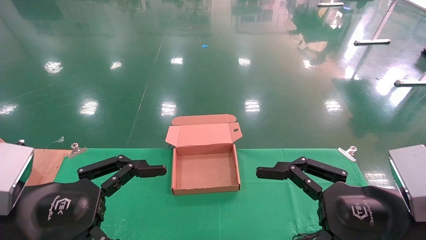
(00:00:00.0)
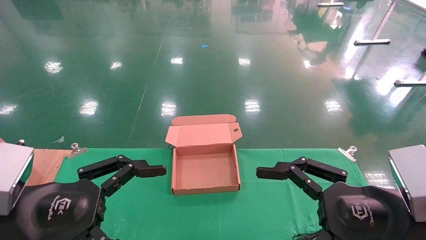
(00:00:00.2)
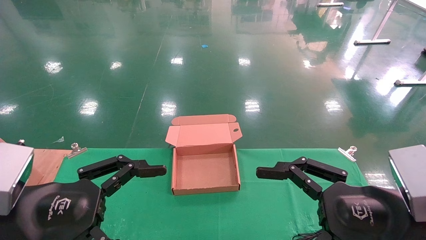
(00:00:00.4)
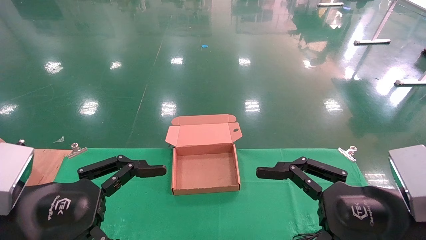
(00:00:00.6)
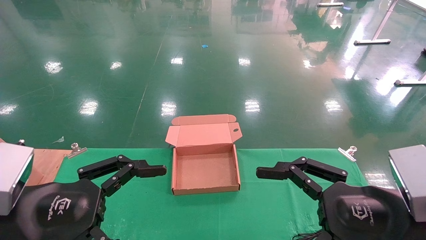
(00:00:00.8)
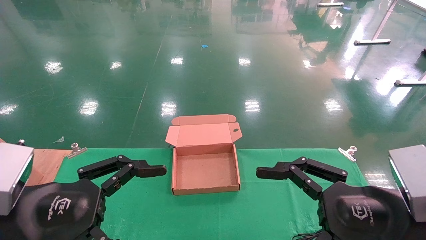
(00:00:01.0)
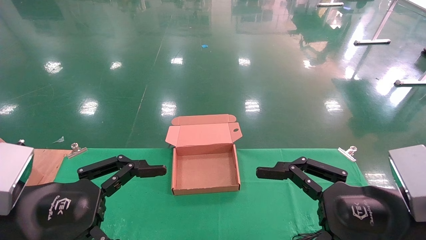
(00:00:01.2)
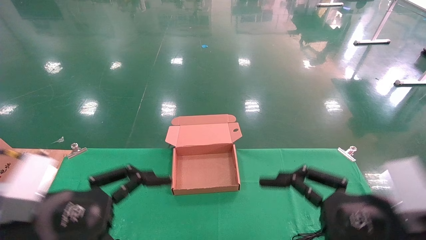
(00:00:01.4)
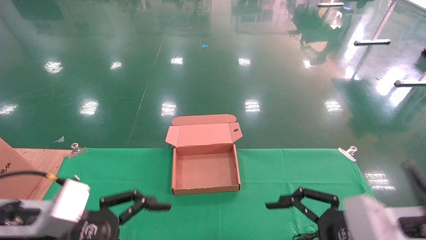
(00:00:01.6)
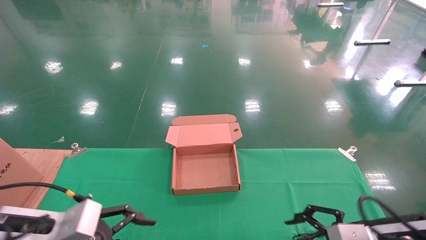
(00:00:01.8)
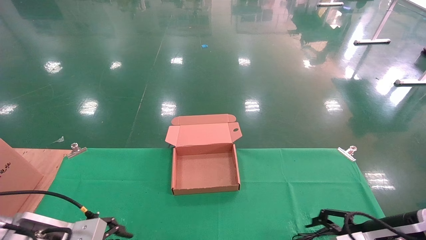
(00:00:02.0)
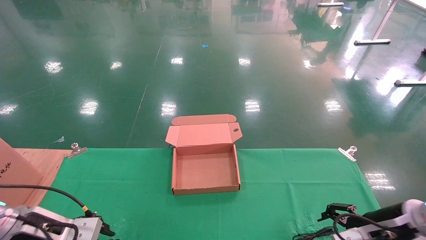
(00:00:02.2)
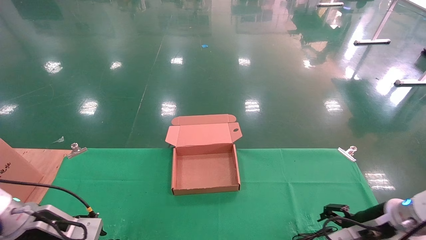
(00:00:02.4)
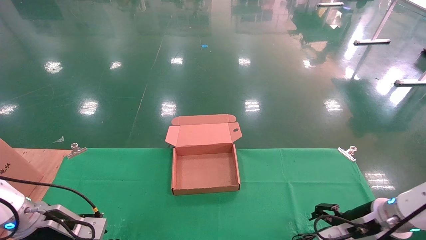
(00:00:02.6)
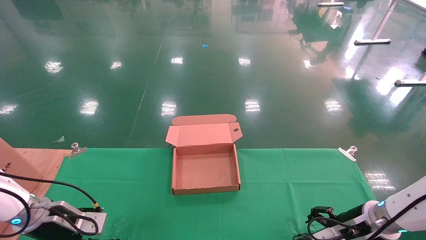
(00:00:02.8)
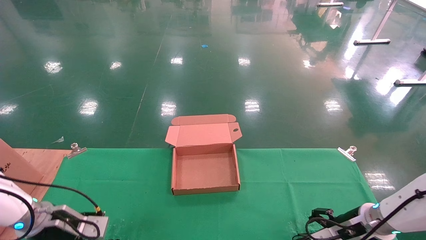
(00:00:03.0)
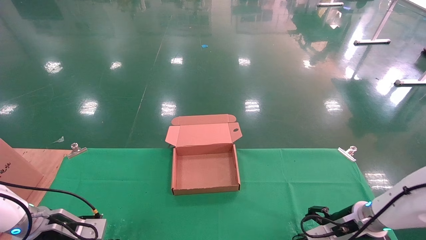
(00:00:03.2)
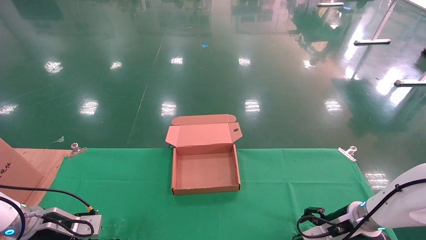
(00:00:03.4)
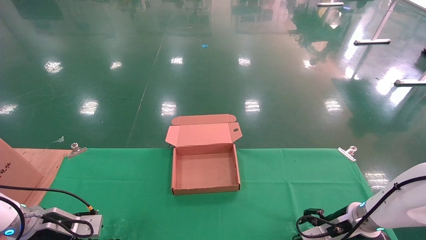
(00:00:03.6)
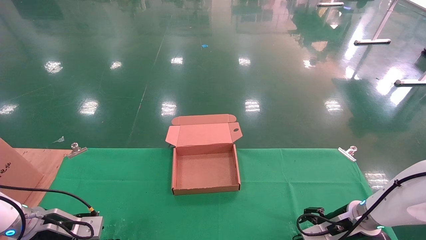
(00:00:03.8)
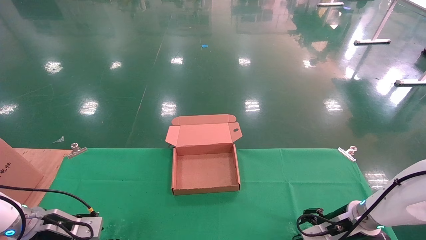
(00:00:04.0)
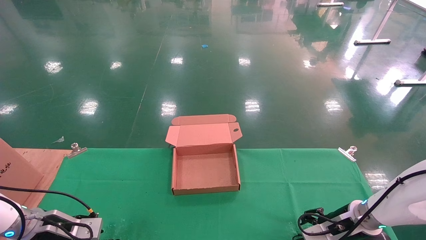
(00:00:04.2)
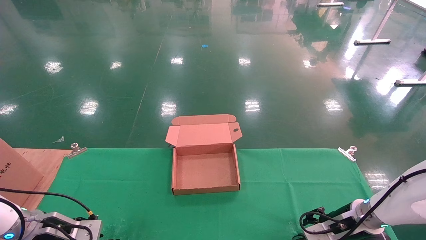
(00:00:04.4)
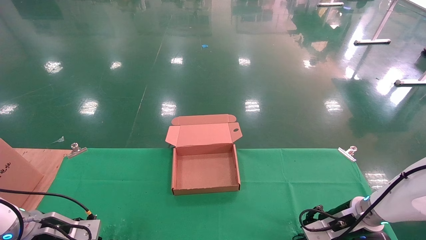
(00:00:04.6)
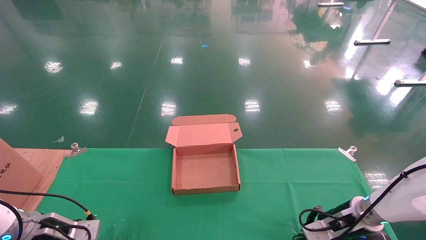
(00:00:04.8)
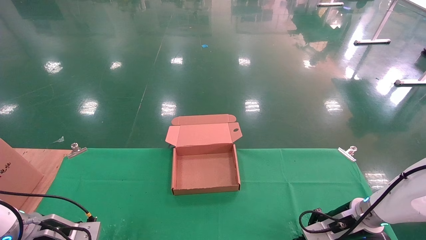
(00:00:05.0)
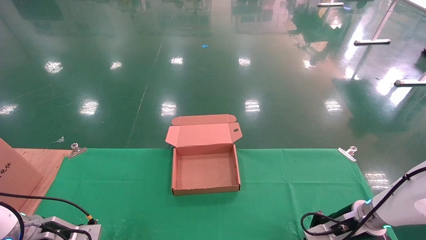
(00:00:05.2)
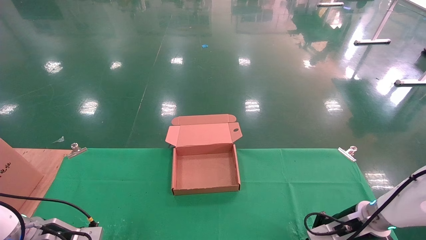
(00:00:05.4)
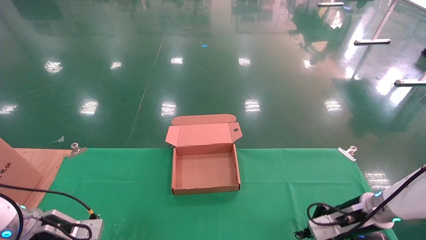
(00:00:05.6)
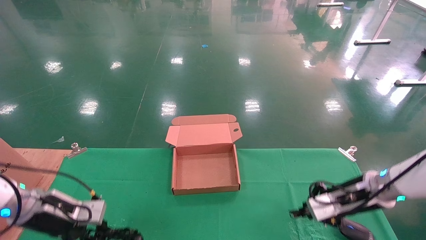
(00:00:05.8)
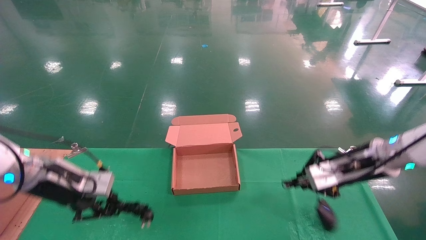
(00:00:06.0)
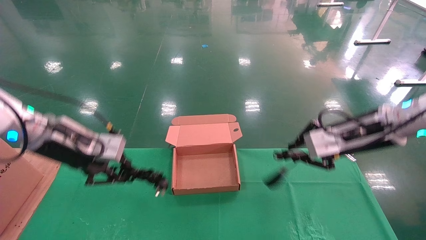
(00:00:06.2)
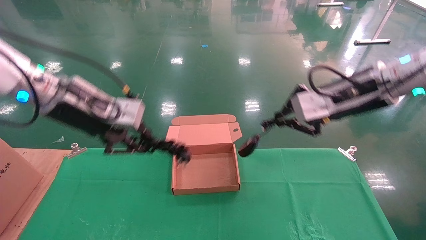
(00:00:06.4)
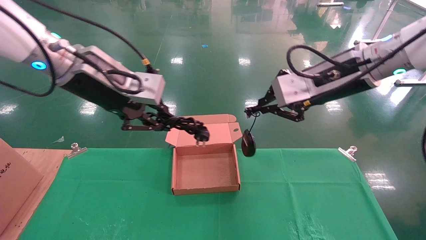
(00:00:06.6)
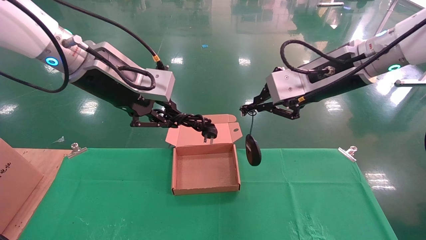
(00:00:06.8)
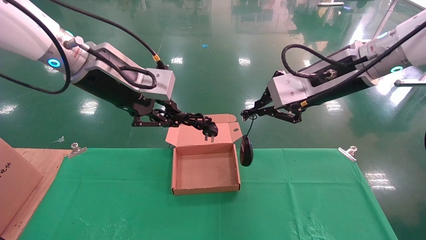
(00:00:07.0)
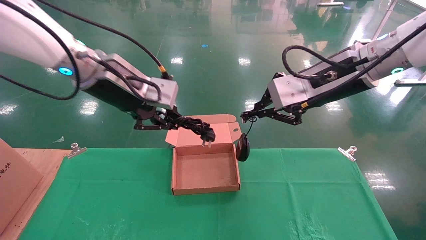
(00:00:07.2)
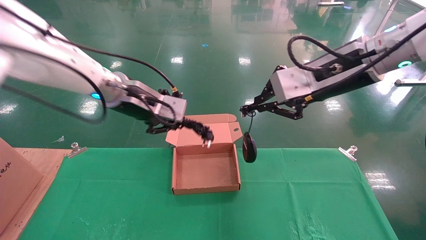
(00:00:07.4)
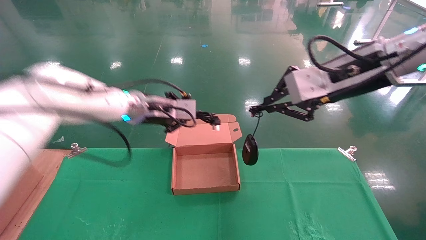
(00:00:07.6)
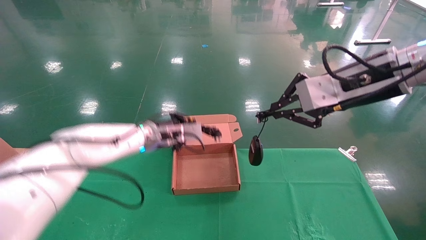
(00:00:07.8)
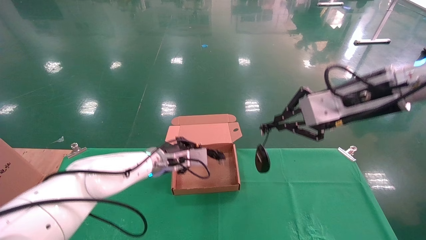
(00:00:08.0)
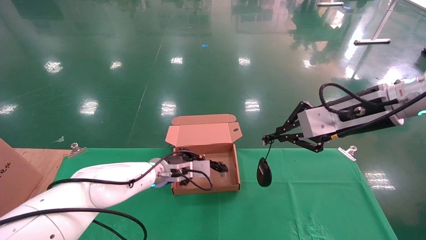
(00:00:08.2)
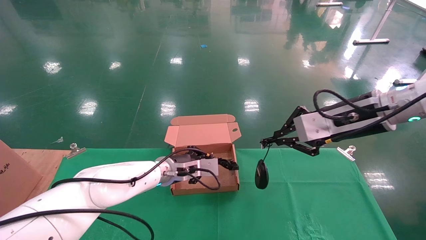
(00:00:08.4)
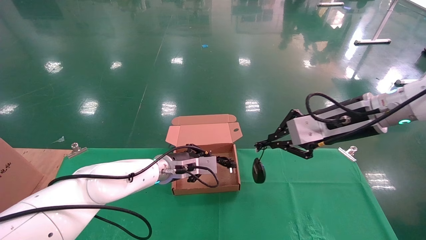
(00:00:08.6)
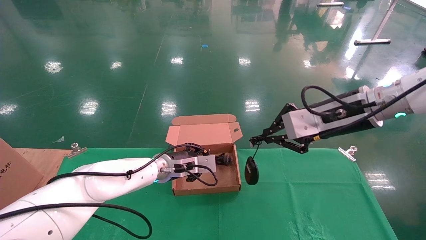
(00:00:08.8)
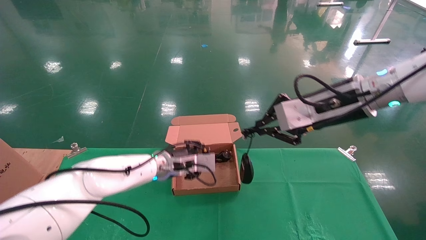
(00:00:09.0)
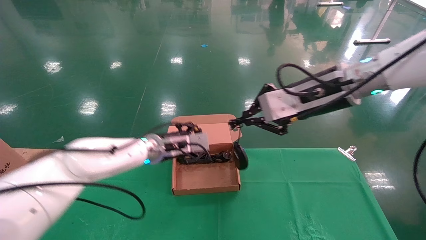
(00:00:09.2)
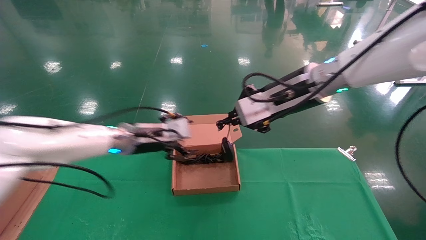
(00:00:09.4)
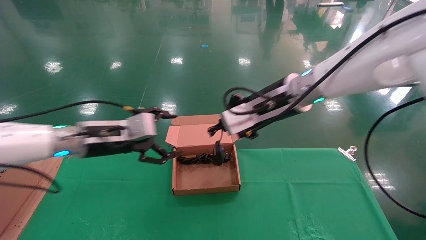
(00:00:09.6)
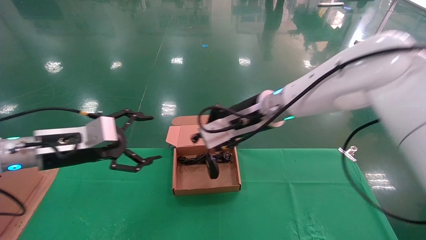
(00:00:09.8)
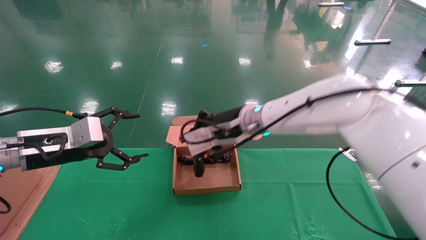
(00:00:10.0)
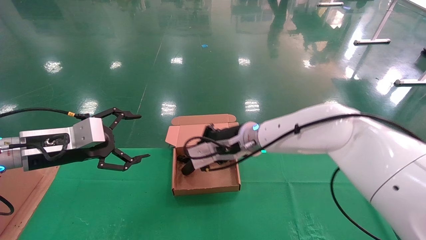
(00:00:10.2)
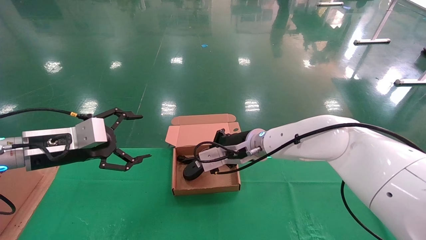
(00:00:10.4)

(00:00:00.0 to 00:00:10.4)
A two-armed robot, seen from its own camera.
Step, 00:00:02.2 - 00:00:05.2: Grab and lift both the mouse and power cord from the accessory packaging area at the same time.
00:00:00.0 - 00:00:01.4: The grippers stay close to where they were, moving slightly.
00:00:01.4 - 00:00:03.0: The right gripper moves forward and downward, about 25 cm; the left gripper travels forward, downward and to the left by roughly 25 cm.
00:00:03.0 - 00:00:04.4: There are only small adjustments of the grippers.
00:00:04.4 - 00:00:06.0: Both grippers move upward, some 15 cm. The right gripper closes. The left gripper closes.
00:00:06.0 - 00:00:07.4: The right gripper is displaced upward and to the left by approximately 20 cm, while the left gripper heads to the right and upward, covering roughly 20 cm.
00:00:07.4 - 00:00:09.0: The left gripper goes approximately 20 cm downward.
00:00:09.0 - 00:00:10.4: The right gripper goes approximately 20 cm to the left, downward and forward. The left gripper is displaced to the left and backward by roughly 25 cm, and opens its fingers.

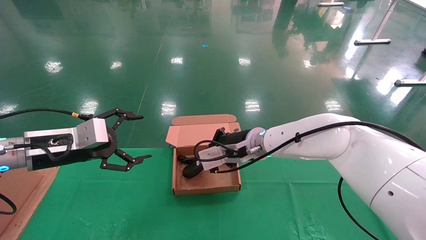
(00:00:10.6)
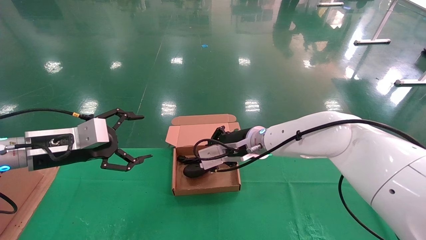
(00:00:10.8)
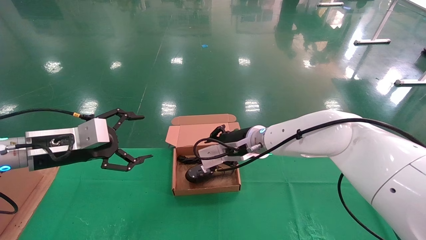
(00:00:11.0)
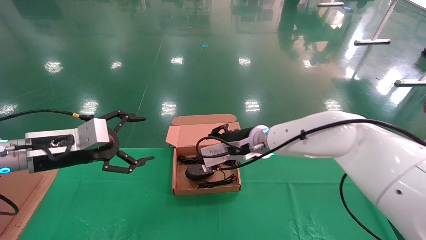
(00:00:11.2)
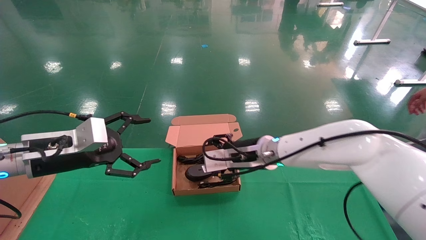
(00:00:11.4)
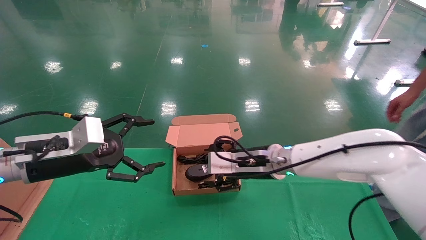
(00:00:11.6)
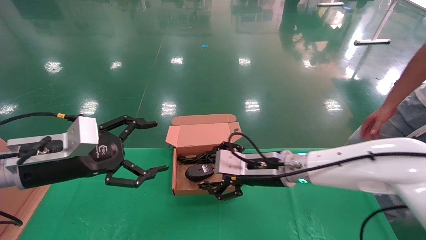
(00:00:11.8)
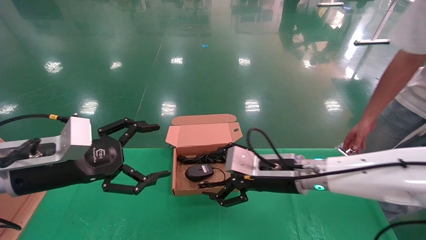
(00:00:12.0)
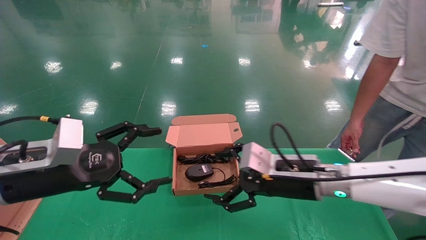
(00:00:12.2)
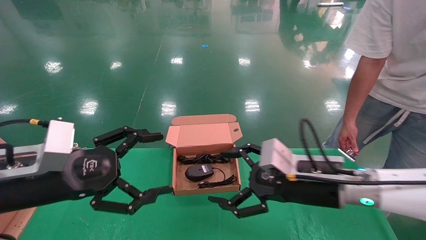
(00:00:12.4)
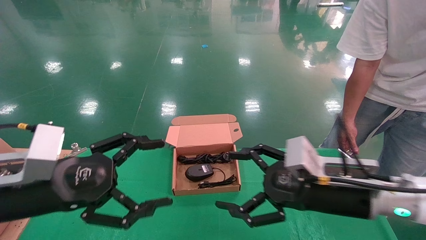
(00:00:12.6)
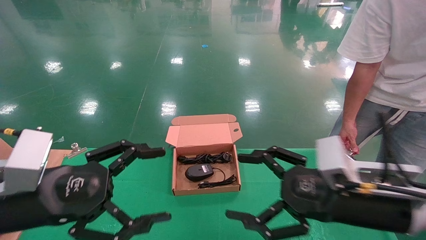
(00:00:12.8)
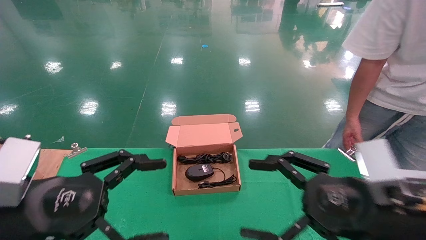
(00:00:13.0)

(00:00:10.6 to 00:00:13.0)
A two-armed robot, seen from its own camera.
00:00:10.6 - 00:00:11.8: The left gripper changes place by approximately 5 cm; the right gripper travels backward and to the right by approximately 10 cm, and opens.
00:00:11.8 - 00:00:13.0: The left gripper travels backward by approximately 10 cm. Meanwhile the right gripper moves backward and to the right, approximately 20 cm.
